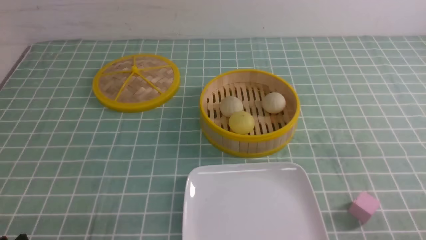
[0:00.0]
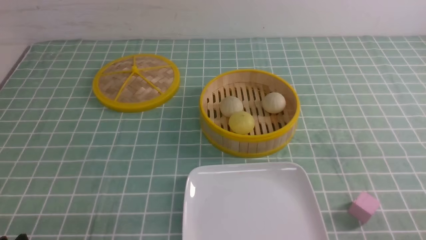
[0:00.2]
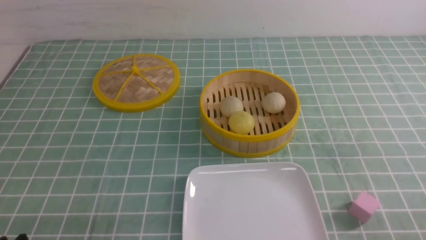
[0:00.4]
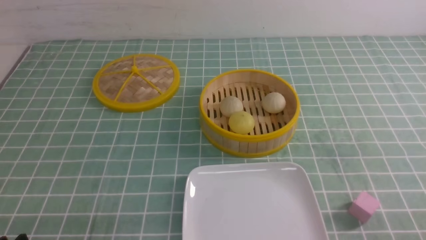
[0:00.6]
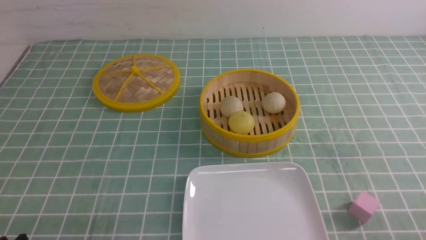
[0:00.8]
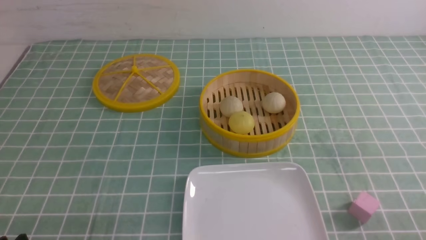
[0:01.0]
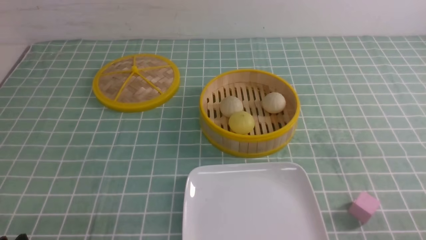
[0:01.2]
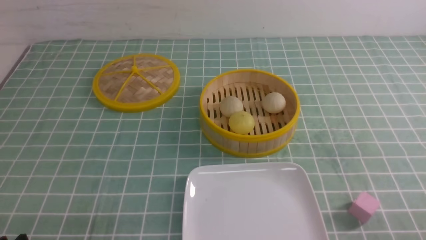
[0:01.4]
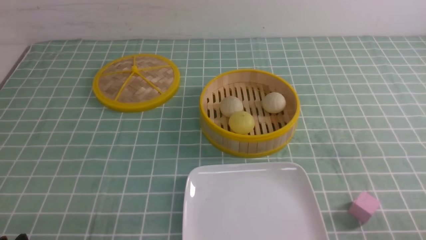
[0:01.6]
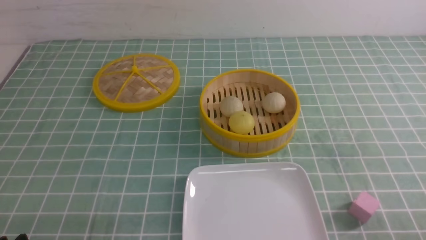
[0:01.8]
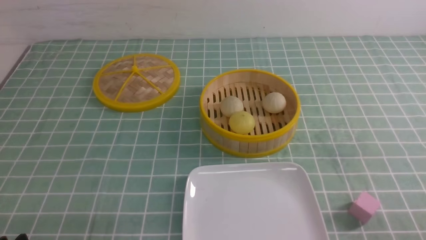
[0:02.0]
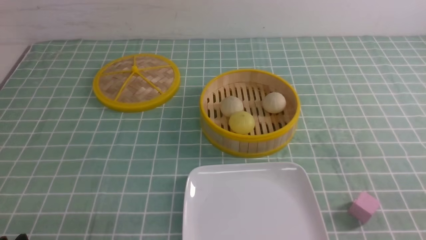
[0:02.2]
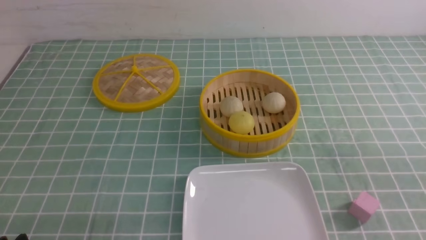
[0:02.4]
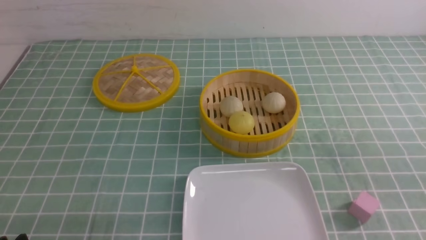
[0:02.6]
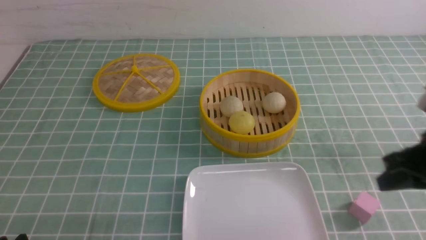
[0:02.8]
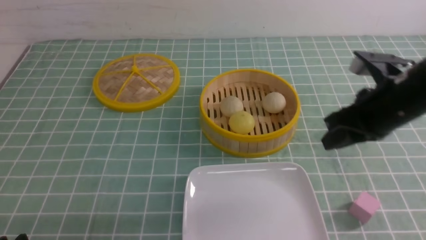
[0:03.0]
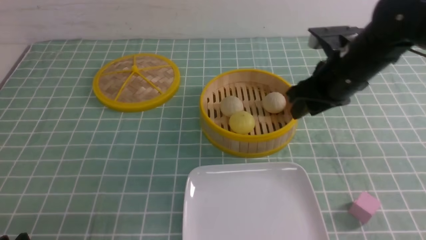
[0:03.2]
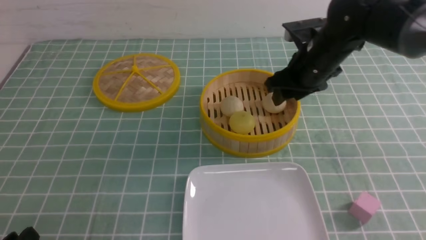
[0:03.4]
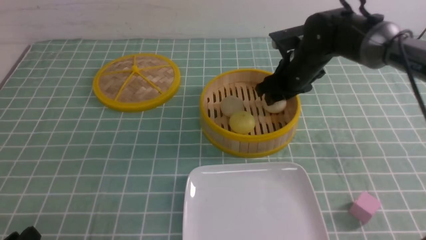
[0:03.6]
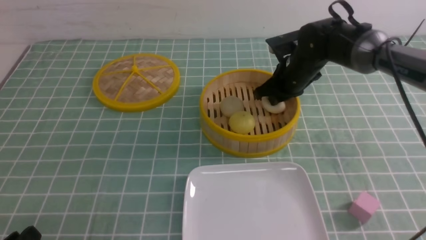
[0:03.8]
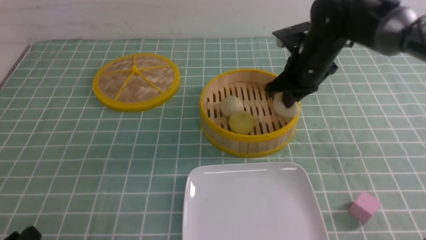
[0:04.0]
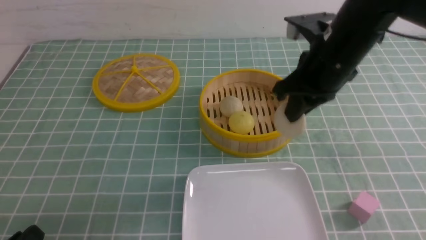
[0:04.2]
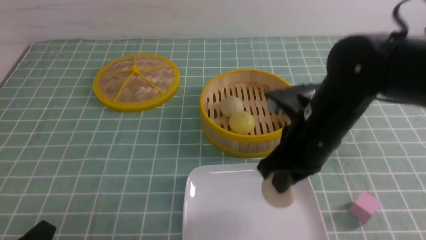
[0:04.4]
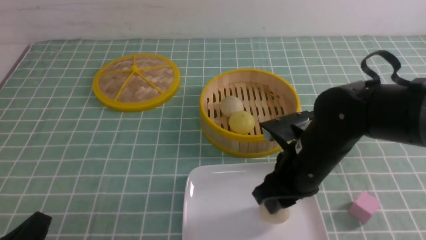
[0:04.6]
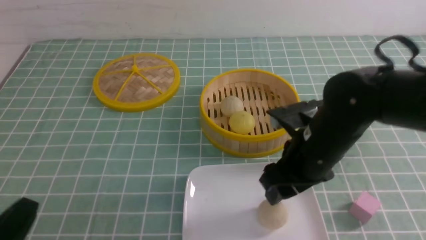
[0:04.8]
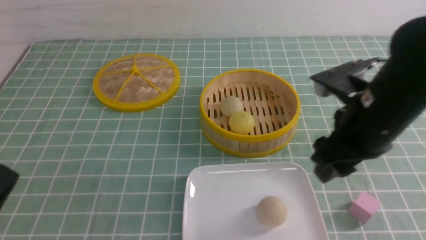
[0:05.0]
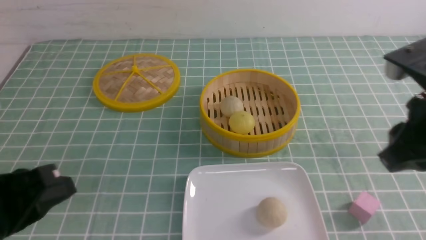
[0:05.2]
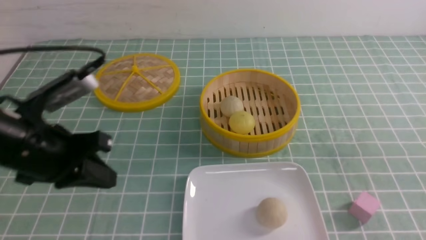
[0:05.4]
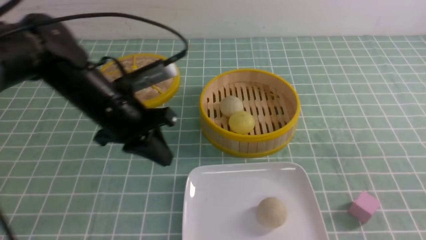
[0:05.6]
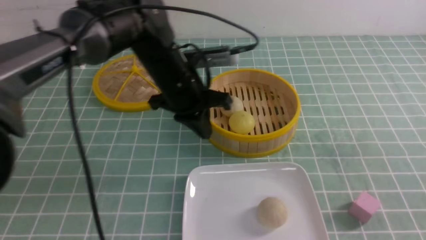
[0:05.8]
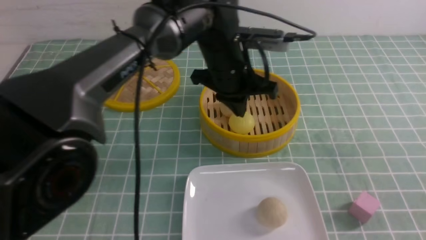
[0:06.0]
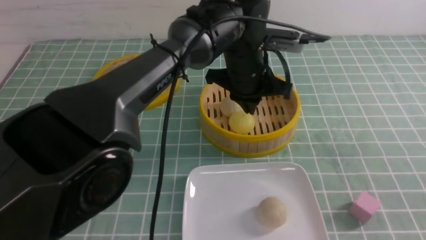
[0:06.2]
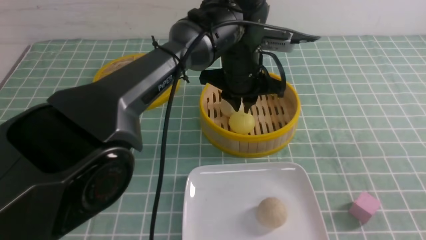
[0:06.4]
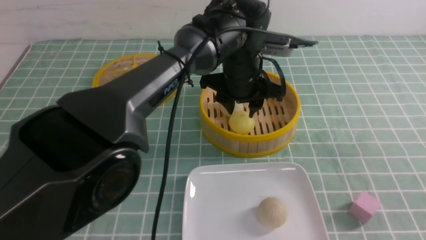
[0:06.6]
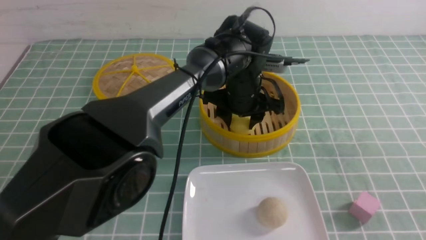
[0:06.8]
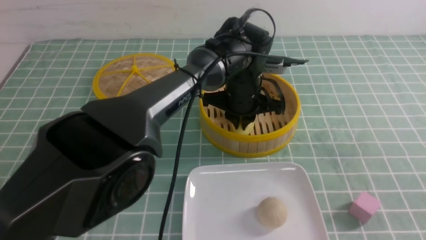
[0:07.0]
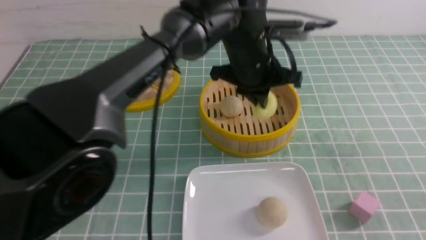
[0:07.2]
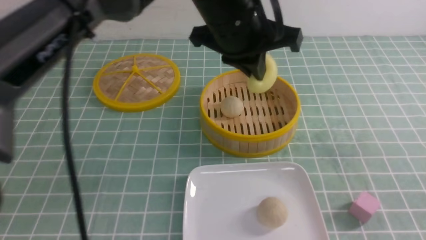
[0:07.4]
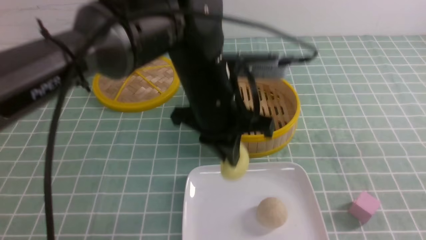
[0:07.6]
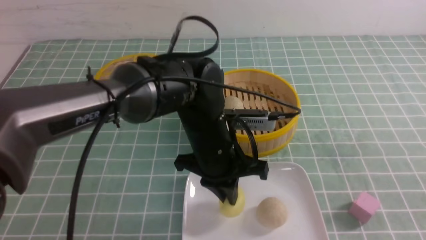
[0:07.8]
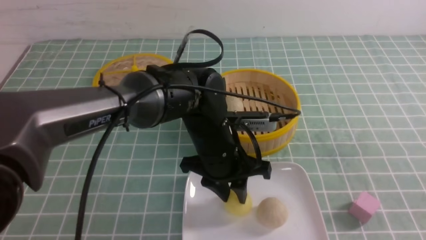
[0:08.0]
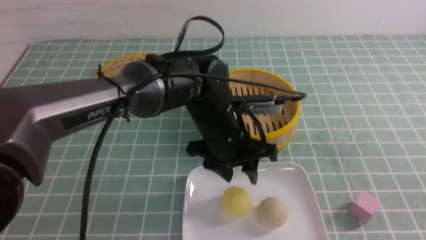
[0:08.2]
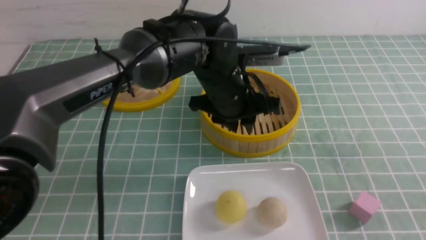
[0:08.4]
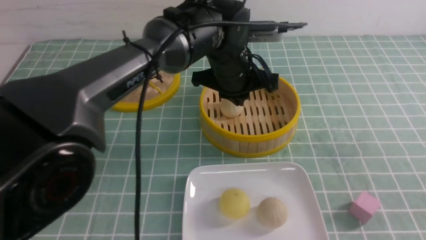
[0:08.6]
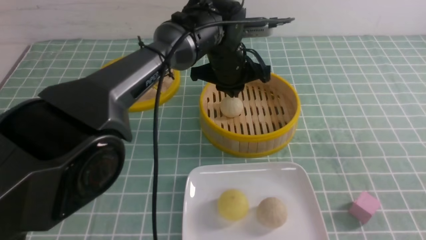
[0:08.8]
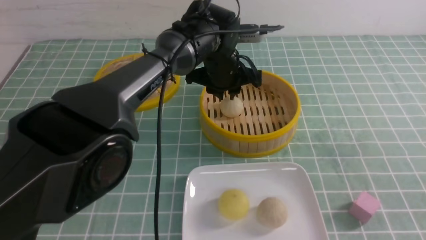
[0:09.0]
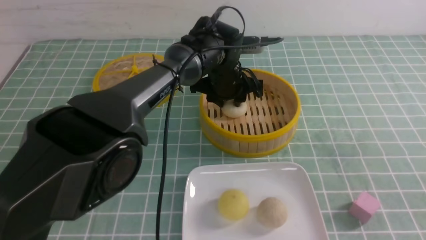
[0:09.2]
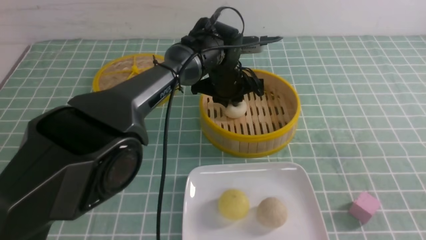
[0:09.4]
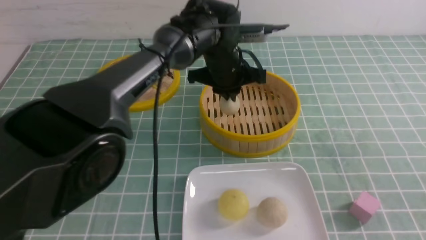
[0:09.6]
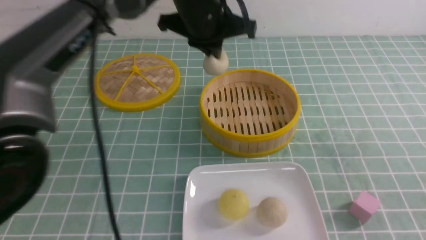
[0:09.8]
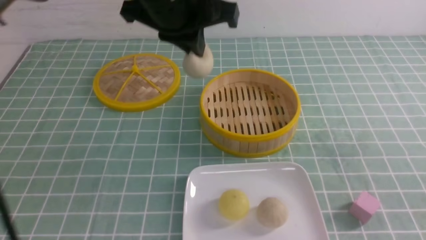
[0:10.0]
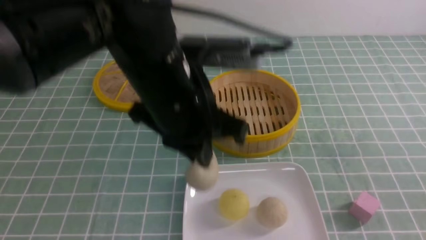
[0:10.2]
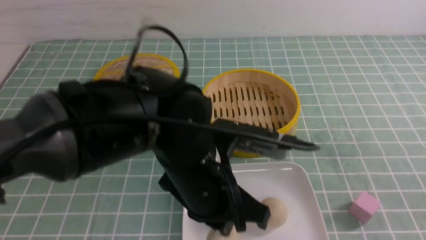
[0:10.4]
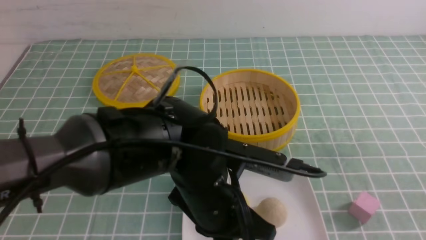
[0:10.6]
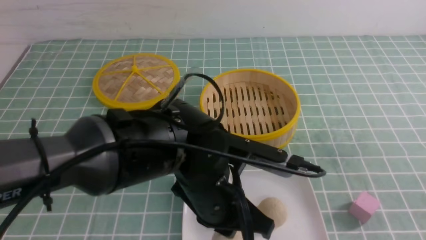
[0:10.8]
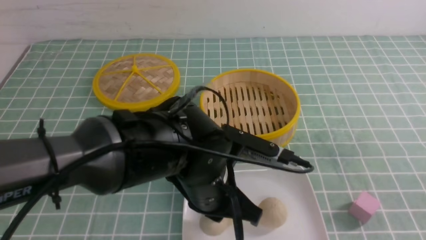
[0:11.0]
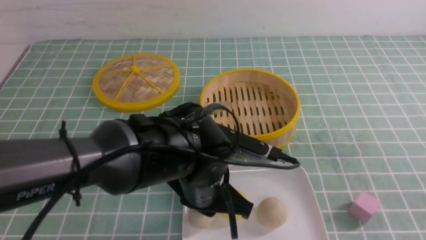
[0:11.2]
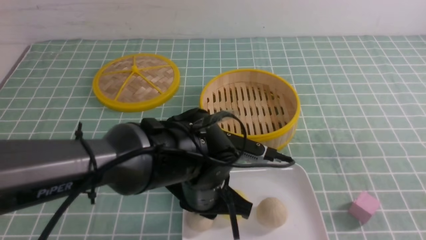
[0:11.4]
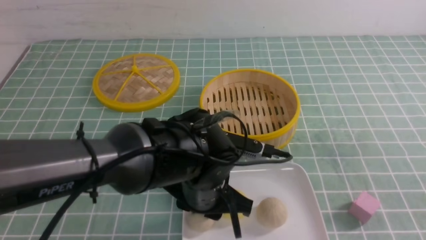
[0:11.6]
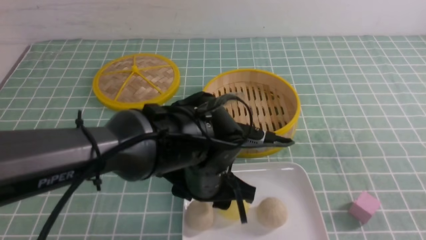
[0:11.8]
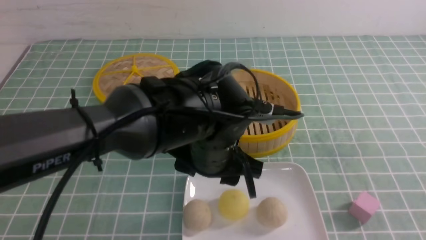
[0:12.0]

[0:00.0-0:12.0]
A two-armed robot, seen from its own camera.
Step, 0:00.0 to 0:03.8: use the right arm to grab the steamed stuffed bun that is closest to it.
Step, 0:04.0 to 0:04.6: use the right arm to put the steamed stuffed bun into the plate.
Step, 0:04.8 to 0:07.0: use the left arm to grab the steamed stuffed bun that is closest to it.
Step, 0:07.2 to 0:08.0: use the left arm to put the steamed stuffed bun into the plate.
Step, 0:08.2 to 0:09.4: use the left arm to grab the steamed stuffed bun that is closest to it.
Step, 0:09.6 to 0:11.6: use the left arm to put the steamed stuffed bun into the plate.
0:01.6 to 0:03.0: The right gripper goes roughly 25 cm forward and upward, and closes, then opens again.
0:03.0 to 0:04.4: The right gripper travels to the left by roughly 10 cm, moves some 15 cm forward and comes back, and opens, then closes again.
0:04.4 to 0:06.0: The left gripper goes approximately 40 cm forward and to the right, and closes; the right gripper travels backward and to the right by approximately 25 cm, and opens and closes again.
0:06.0 to 0:07.6: The left gripper moves up and down over approximately 10 cm, changing direction 2 times, and opens and closes again.
0:07.6 to 0:09.0: The left gripper heads forward and downward, covering some 15 cm, and opens its fingers.
0:09.0 to 0:10.4: The left gripper shifts about 25 cm backward, and closes up.
0:10.4 to 0:12.0: The right gripper ends up some 5 cm from where it was; the left gripper opens.

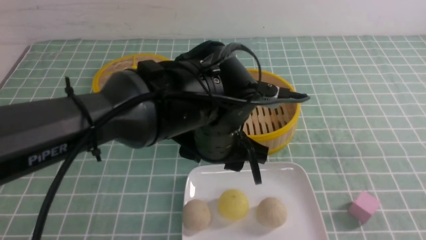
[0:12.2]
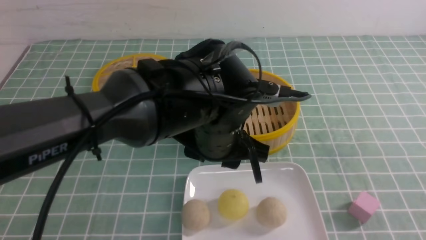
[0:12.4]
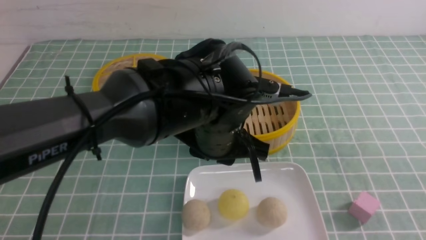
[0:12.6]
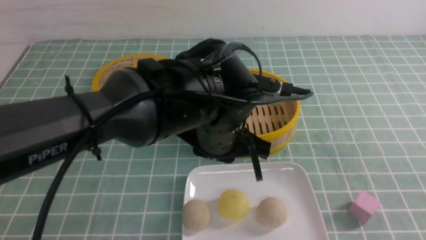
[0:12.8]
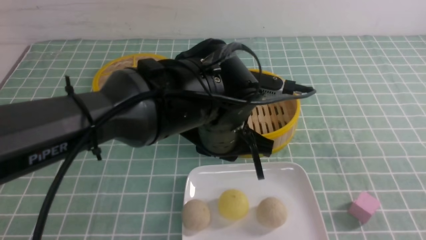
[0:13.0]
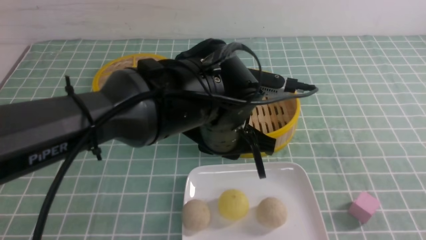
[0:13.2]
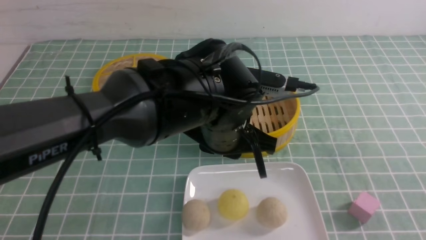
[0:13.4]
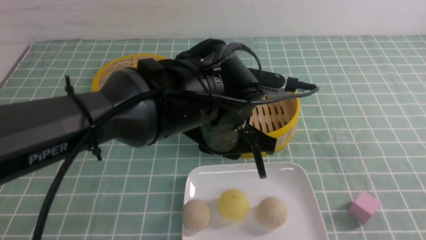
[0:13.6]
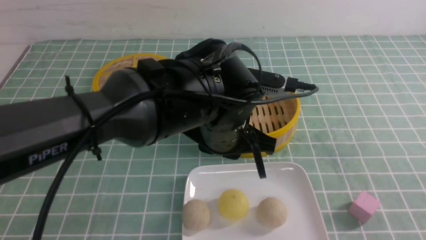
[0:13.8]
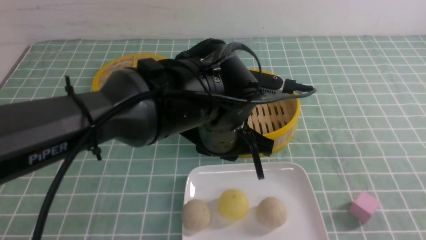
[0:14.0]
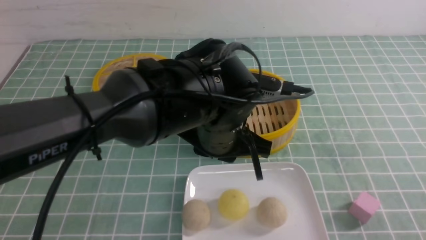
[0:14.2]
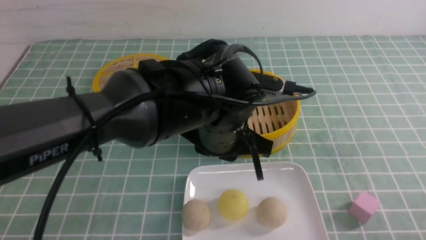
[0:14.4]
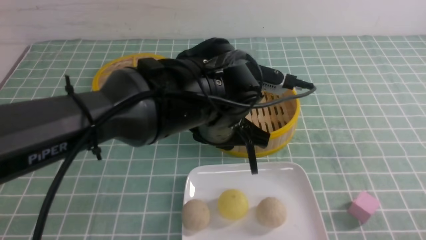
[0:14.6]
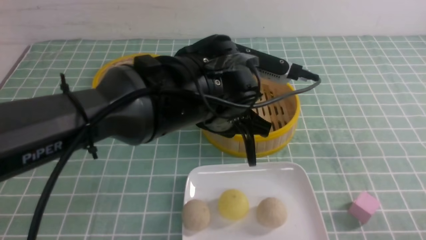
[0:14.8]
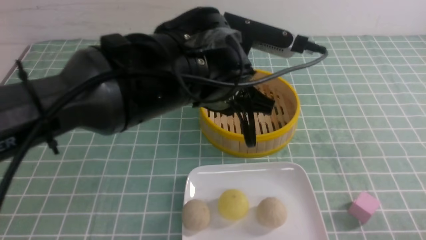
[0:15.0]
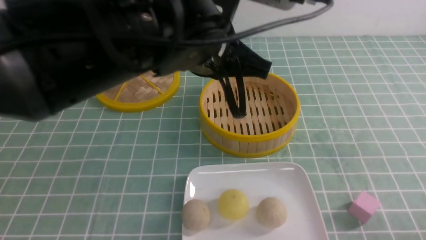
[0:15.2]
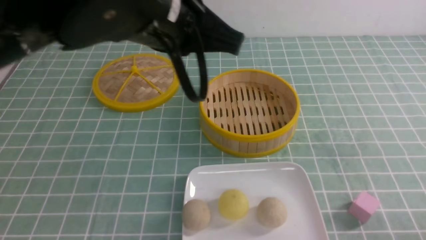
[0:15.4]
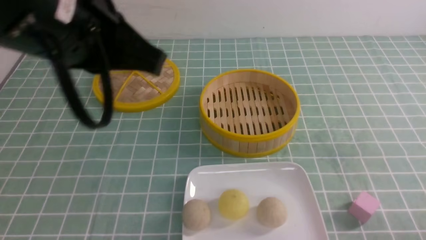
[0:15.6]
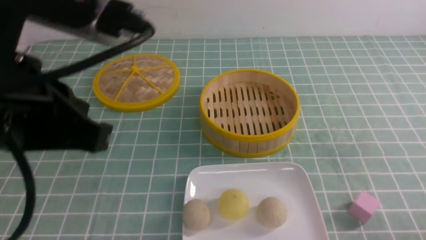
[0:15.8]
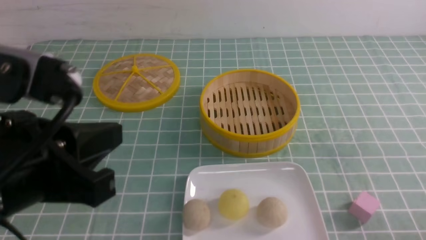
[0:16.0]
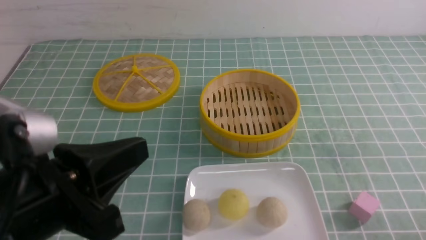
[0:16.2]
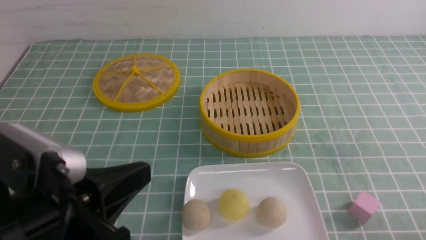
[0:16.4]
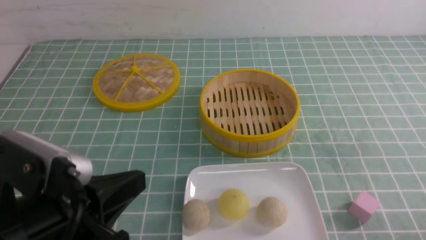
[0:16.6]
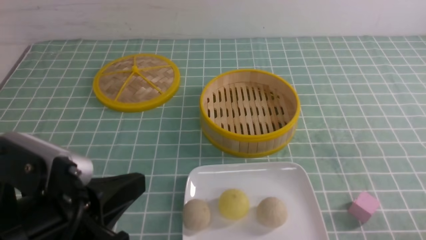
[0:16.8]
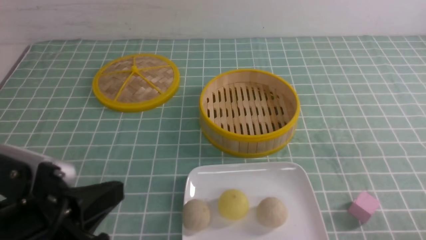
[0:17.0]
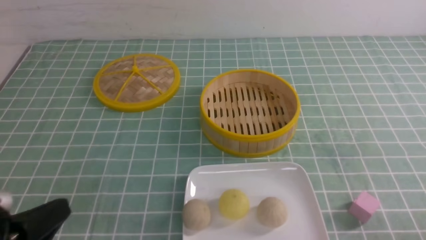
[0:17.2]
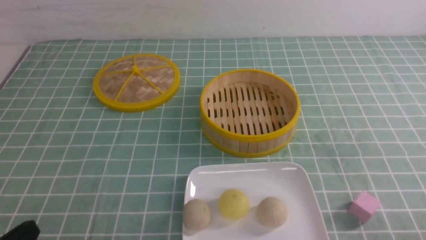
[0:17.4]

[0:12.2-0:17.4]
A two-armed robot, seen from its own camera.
0:12.2 to 0:14.0: The right gripper goes about 5 cm downward; the left gripper closes its fingers.
0:14.0 to 0:15.6: The right gripper is displaced downward by some 10 cm, while the left gripper goes some 20 cm upward, to the left and backward.
0:15.6 to 0:17.4: The left gripper heads downward, to the left and backward, covering roughly 30 cm.
